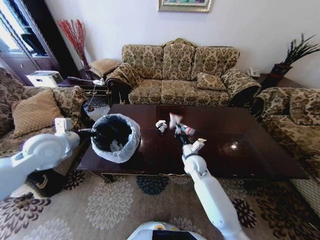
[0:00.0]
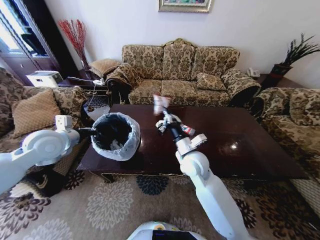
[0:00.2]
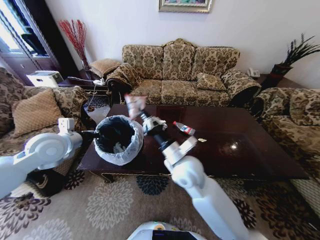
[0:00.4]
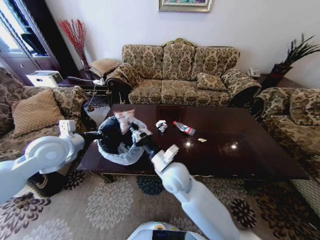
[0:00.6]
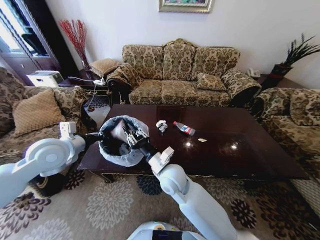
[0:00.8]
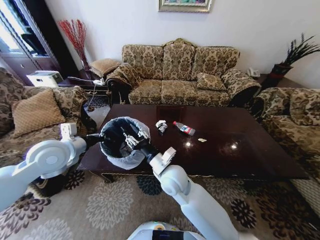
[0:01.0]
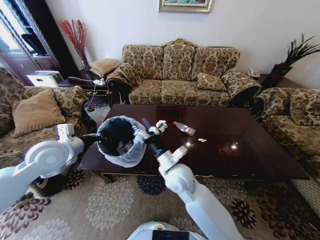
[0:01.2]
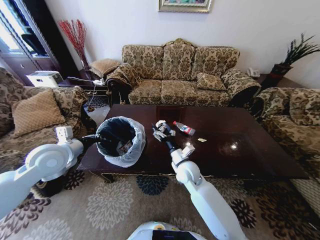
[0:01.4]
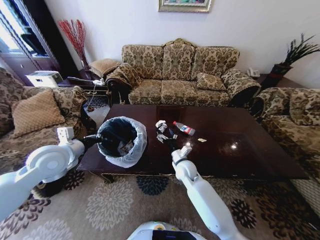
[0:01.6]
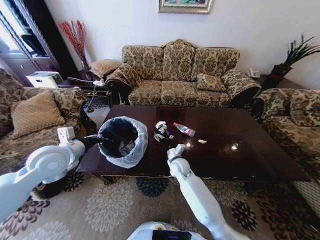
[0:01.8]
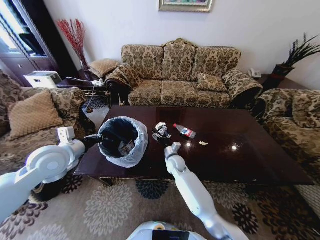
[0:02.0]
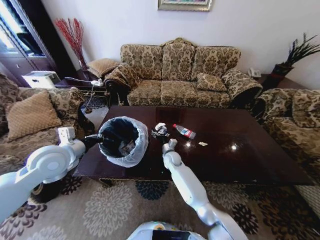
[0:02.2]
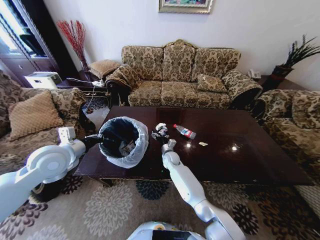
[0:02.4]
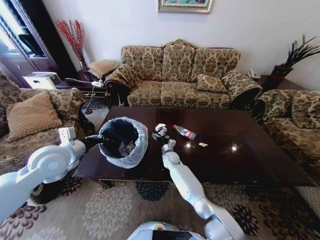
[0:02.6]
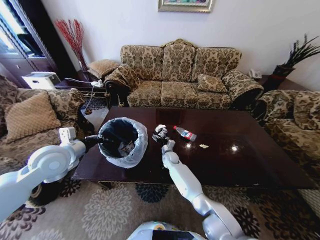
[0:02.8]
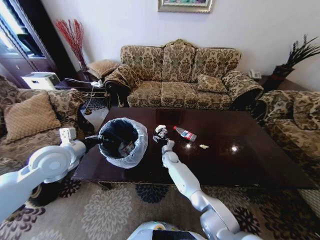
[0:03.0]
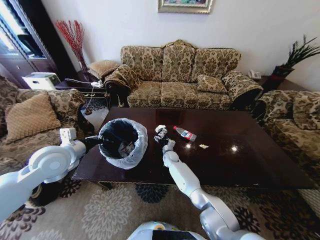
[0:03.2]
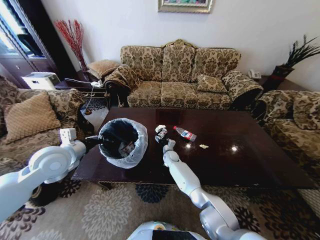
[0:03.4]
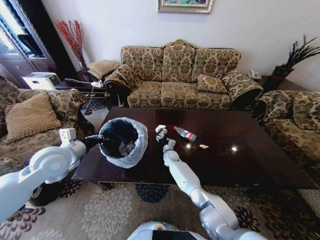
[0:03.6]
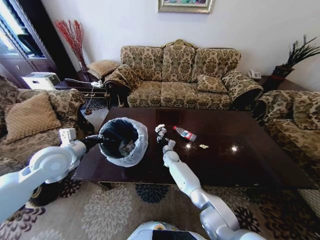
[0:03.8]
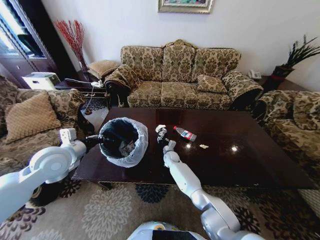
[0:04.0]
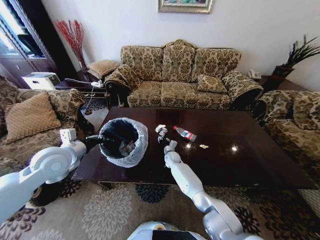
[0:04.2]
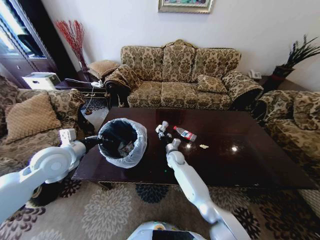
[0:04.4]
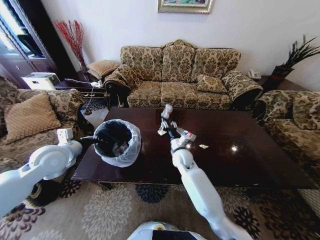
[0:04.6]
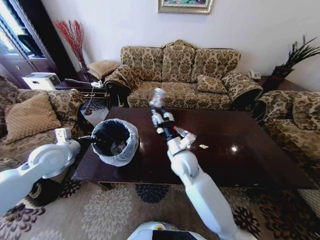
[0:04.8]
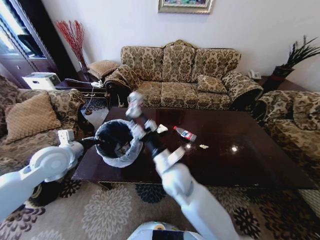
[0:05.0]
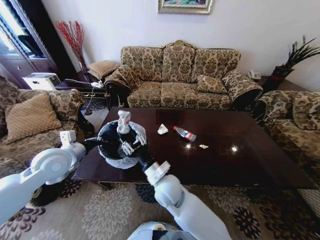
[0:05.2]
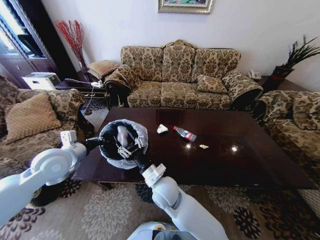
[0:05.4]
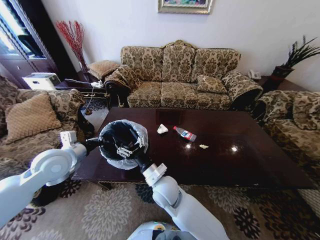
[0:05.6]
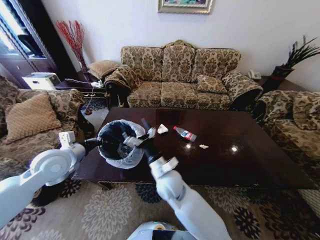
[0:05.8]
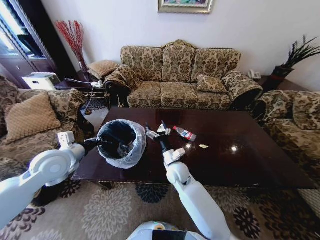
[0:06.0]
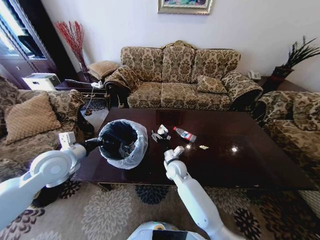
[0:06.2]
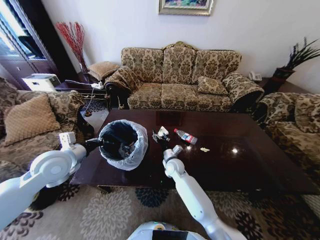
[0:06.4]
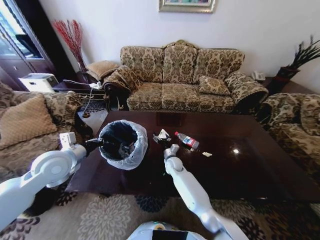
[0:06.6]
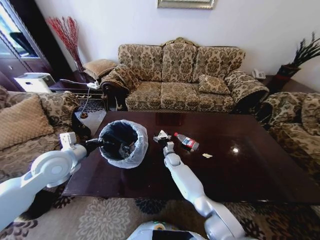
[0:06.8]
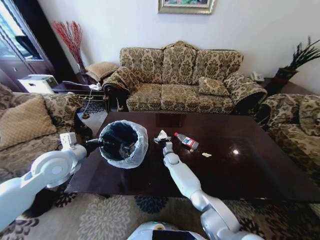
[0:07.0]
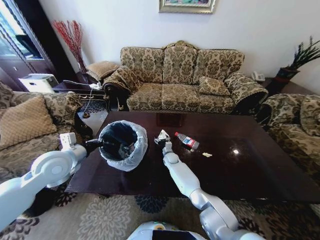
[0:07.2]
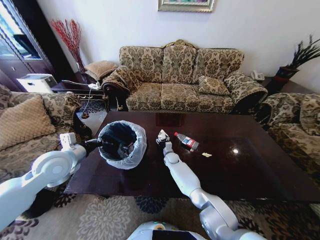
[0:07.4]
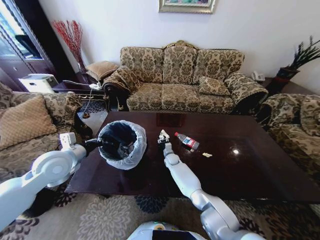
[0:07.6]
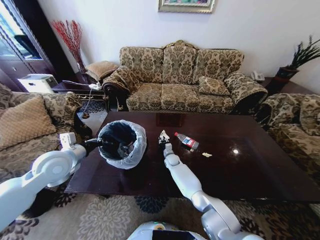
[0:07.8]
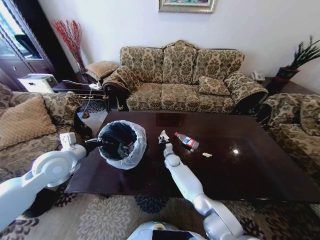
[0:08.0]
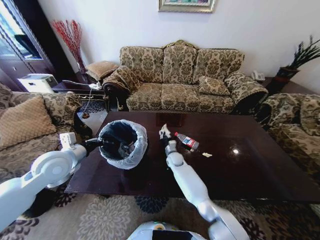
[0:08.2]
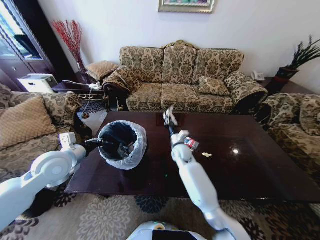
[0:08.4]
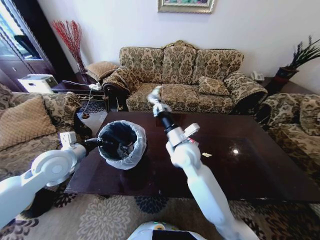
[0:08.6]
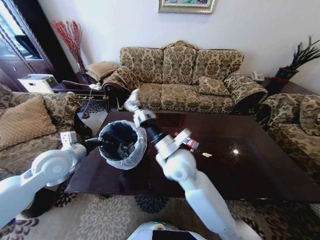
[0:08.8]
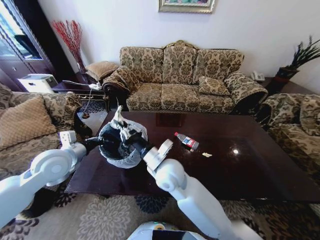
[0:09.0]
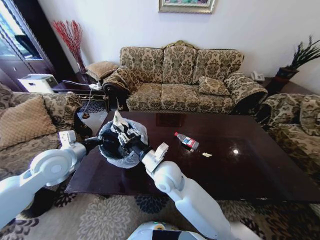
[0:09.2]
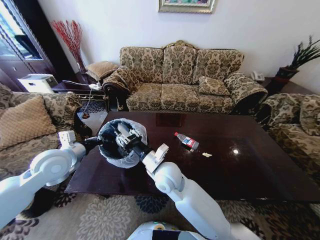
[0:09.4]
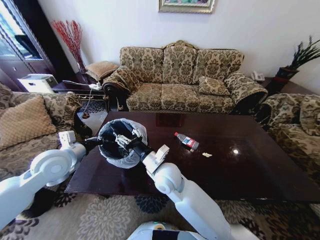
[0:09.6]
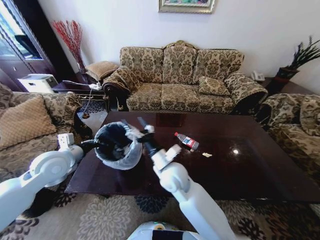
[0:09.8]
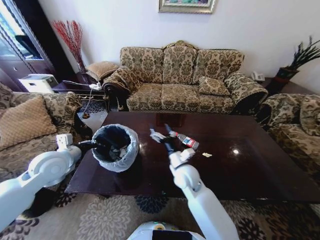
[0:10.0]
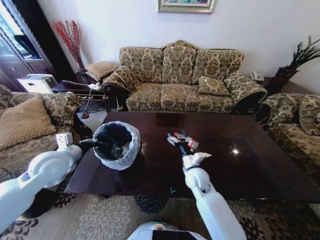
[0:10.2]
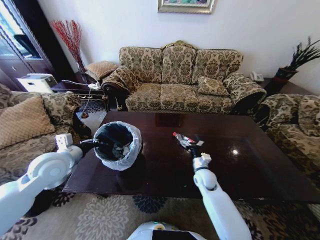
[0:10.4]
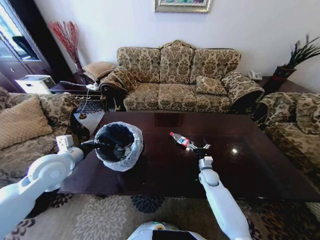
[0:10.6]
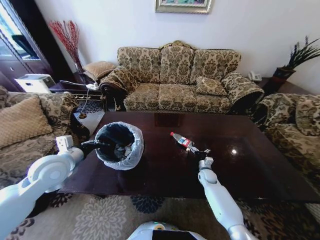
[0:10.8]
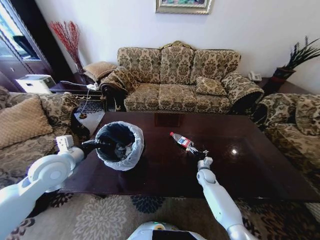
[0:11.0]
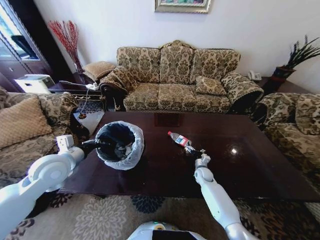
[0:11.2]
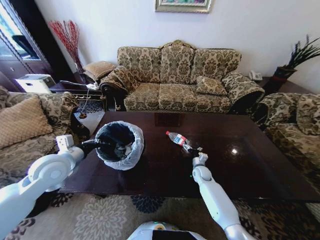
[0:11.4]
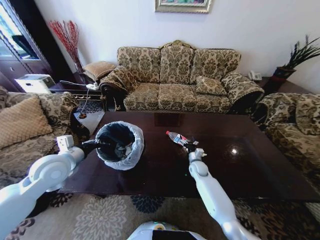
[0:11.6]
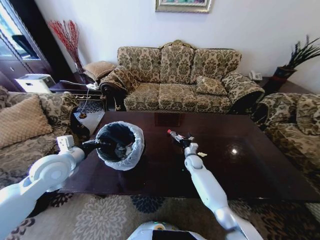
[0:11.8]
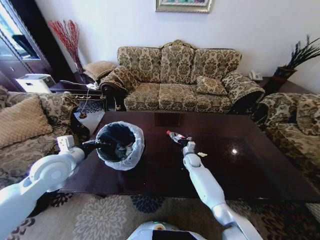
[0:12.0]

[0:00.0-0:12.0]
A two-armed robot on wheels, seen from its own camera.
Task of the whole recording: Move to the front of the table and place the trash on the table into the trash bin.
0:00.0 to 0:01.6: The right gripper travels upward and back again, approximately 15 cm each way, and opens up.
0:01.6 to 0:03.0: The right gripper is displaced forward, downward and to the left by roughly 20 cm.
0:03.0 to 0:04.4: The right gripper goes about 5 cm upward, and closes its fingers.
0:04.4 to 0:06.0: The right gripper goes approximately 15 cm backward and upward, and opens up.
0:06.0 to 0:07.6: The right gripper travels downward and forward by roughly 25 cm, and closes up.
0:07.6 to 0:09.0: The right gripper moves upward and backward, some 35 cm, and closes up.
0:09.0 to 0:10.4: The right gripper shifts roughly 30 cm to the right and downward, and opens up.
0:10.4 to 0:12.0: The right gripper is displaced forward by roughly 10 cm.

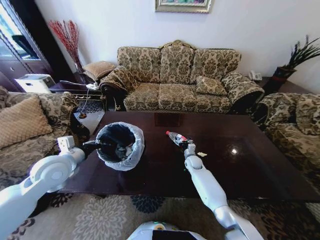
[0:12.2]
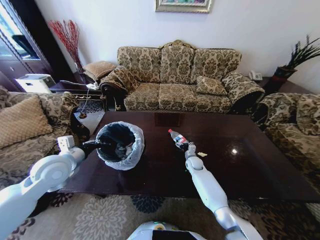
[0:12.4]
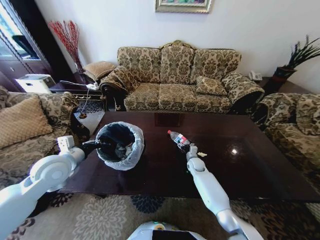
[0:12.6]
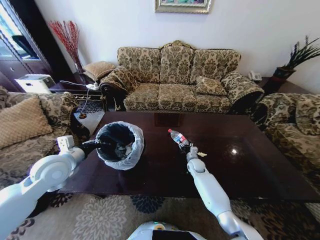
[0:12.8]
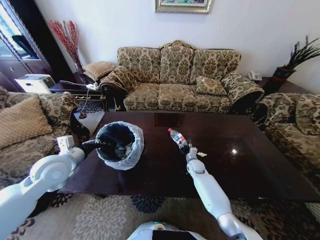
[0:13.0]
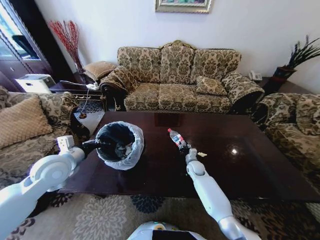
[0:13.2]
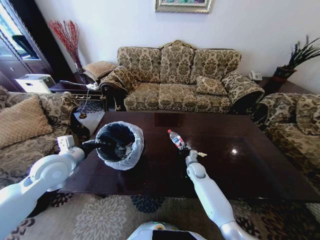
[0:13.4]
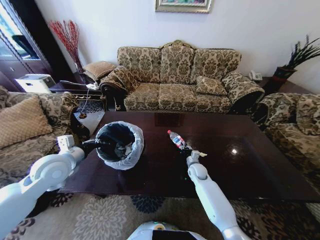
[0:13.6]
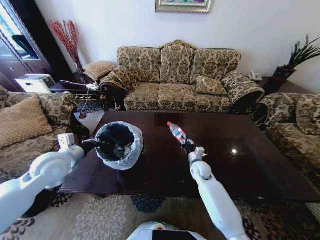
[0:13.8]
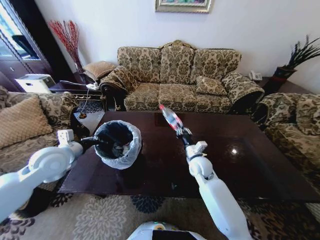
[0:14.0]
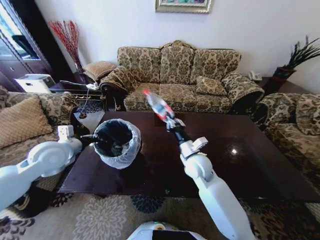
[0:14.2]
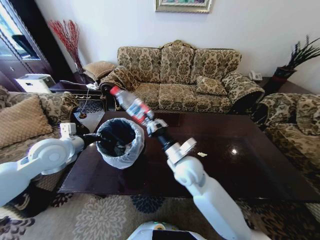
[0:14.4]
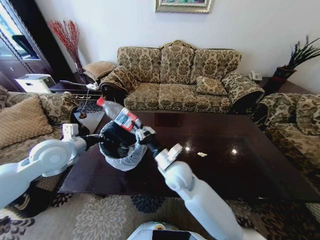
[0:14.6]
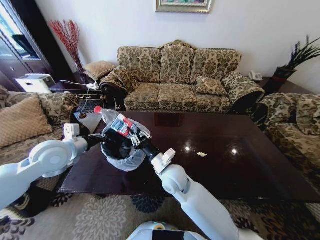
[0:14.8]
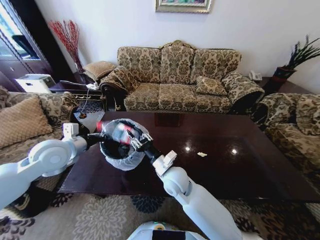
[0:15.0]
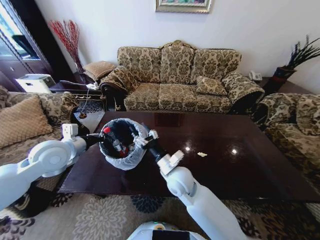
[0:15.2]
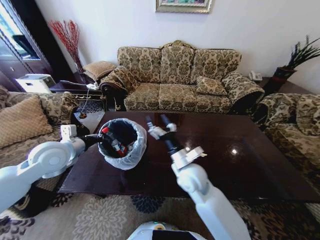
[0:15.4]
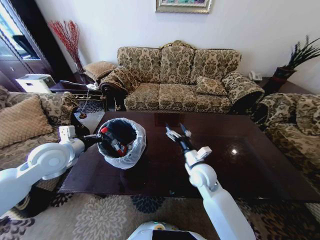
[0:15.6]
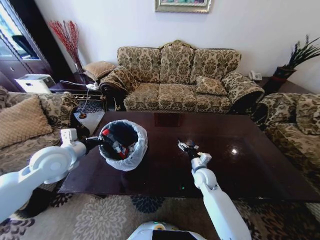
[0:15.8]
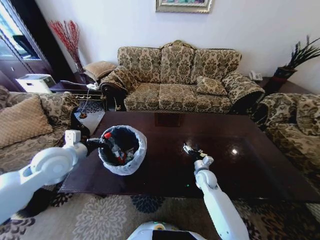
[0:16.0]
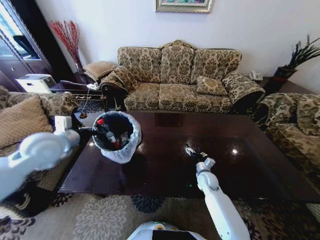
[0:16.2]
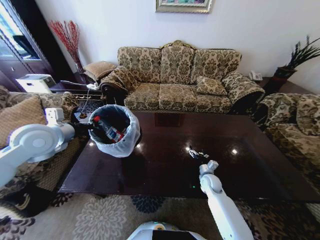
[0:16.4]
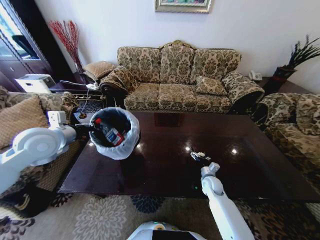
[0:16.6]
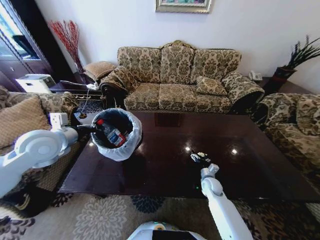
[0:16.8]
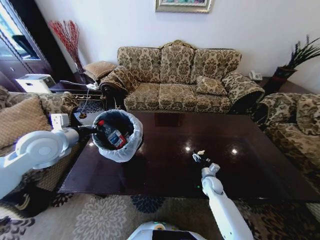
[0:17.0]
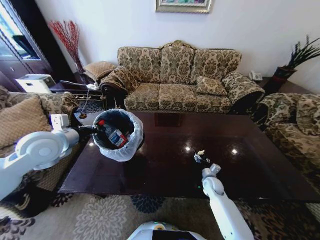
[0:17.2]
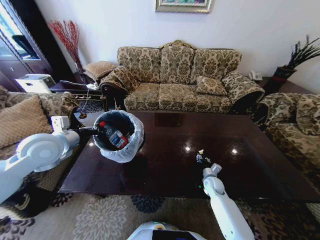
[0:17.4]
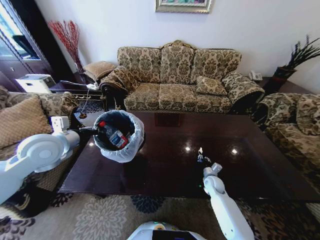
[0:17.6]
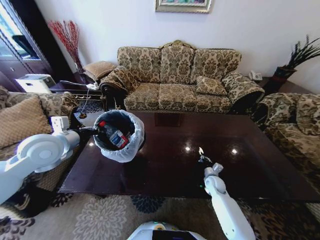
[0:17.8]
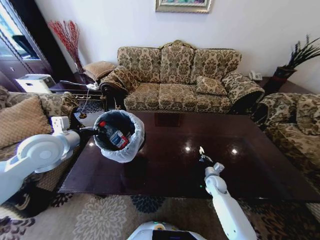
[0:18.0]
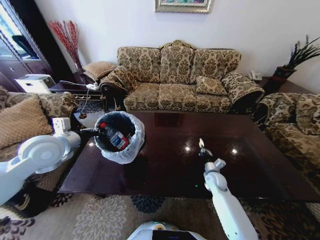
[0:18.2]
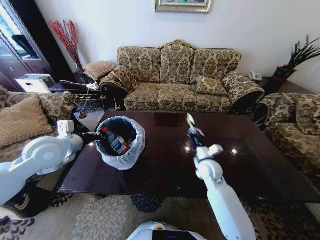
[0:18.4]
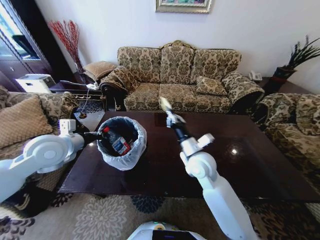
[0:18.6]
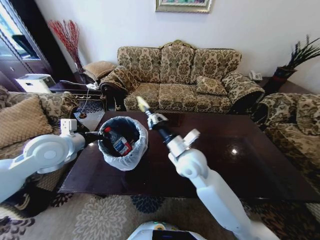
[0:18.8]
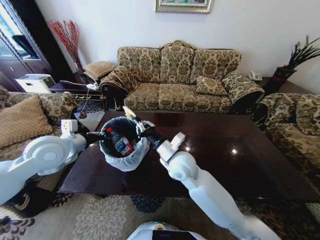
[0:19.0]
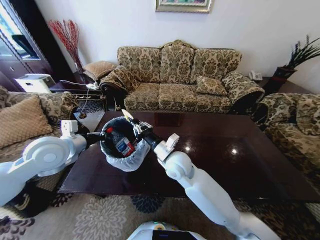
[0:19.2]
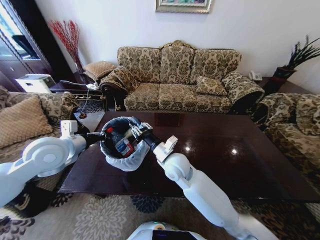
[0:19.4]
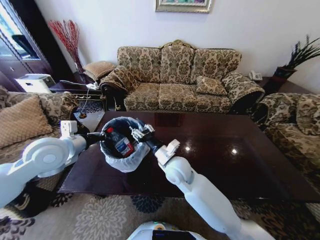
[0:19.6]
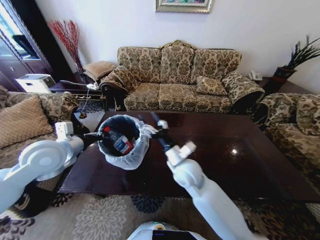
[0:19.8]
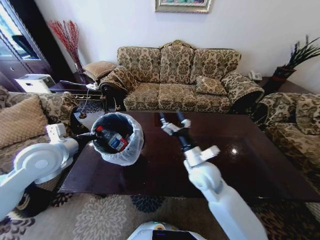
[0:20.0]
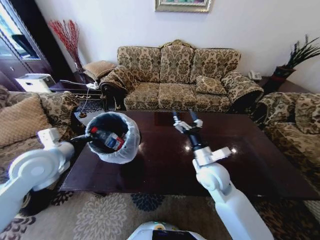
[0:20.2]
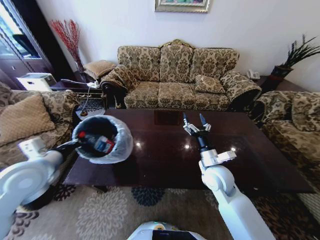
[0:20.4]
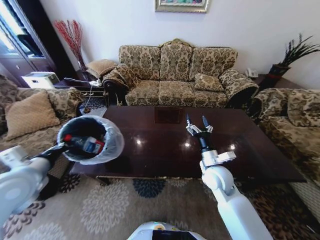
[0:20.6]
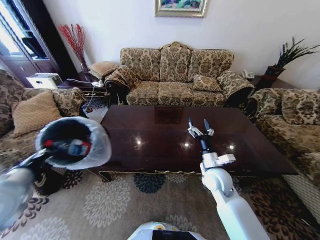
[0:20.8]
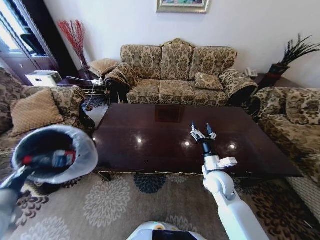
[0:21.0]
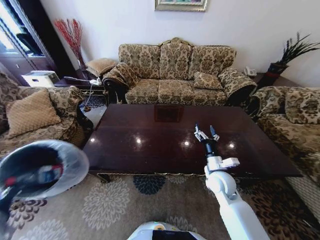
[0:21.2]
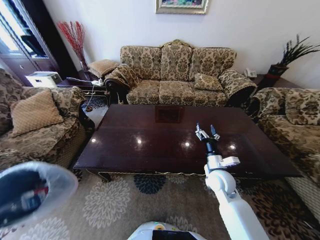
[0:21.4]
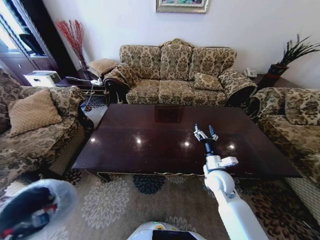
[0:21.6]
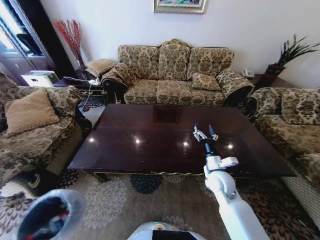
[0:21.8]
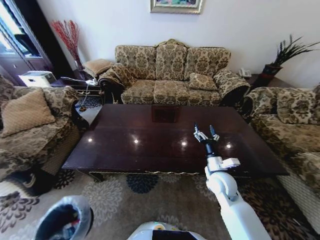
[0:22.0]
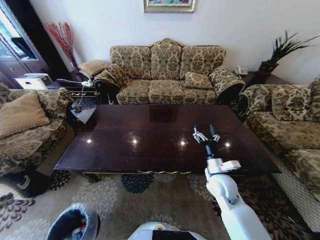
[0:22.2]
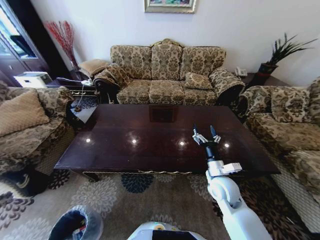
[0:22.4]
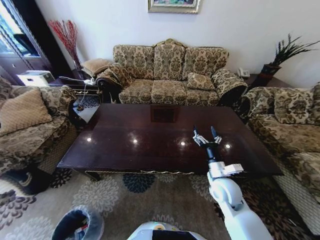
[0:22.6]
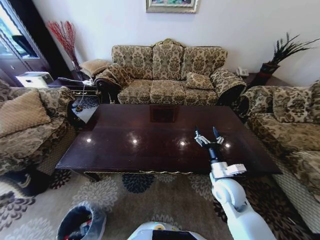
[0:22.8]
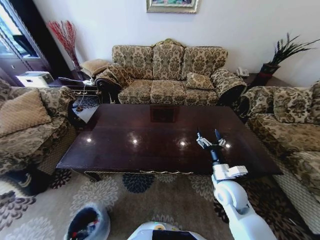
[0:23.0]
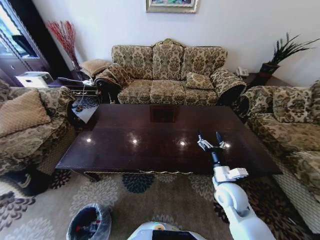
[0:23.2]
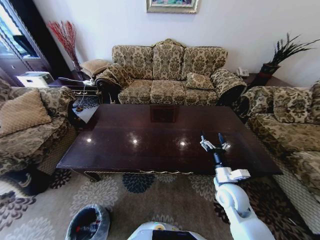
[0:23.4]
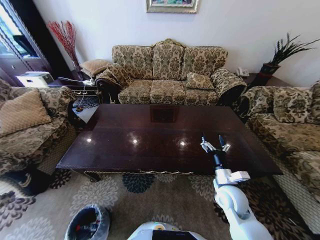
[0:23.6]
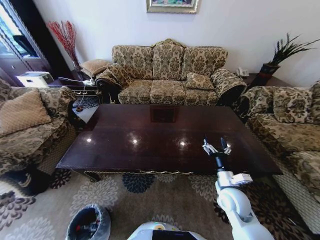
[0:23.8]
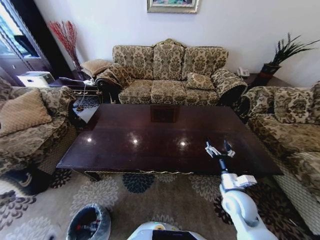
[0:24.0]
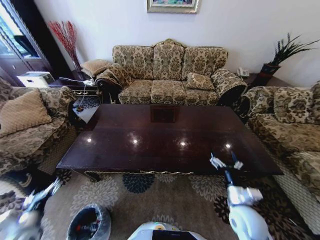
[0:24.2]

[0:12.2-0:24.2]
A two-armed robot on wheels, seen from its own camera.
Task of the whole recording: Move to the front of the table and place the trash on the table into the trash bin.
0:12.2 to 0:13.8: The right gripper goes approximately 10 cm backward and upward, and closes up.
0:13.8 to 0:15.2: The right gripper heads to the left, upward and backward, covering approximately 20 cm, and opens.
0:15.2 to 0:16.6: The right gripper goes about 30 cm to the right and downward, and opens.
0:16.6 to 0:18.2: The right gripper closes.
0:18.2 to 0:19.8: The right gripper travels upward and to the left by about 30 cm, and opens its fingers.
0:19.8 to 0:21.2: The left gripper shifts some 25 cm backward, downward and to the left. Meanwhile the right gripper heads to the right and downward, covering approximately 15 cm.
0:21.2 to 0:22.6: The left gripper travels downward by approximately 40 cm.
0:22.6 to 0:24.2: The right gripper is displaced backward and to the right by about 10 cm. Meanwhile the left gripper shifts approximately 25 cm upward, and opens up.
